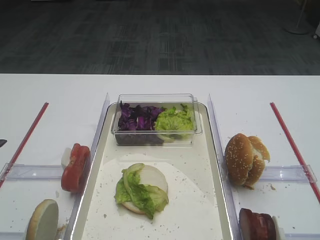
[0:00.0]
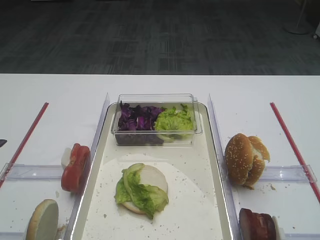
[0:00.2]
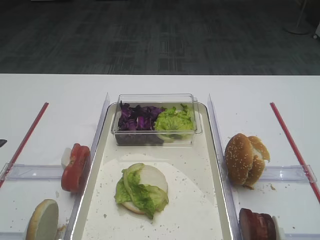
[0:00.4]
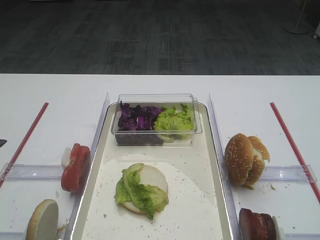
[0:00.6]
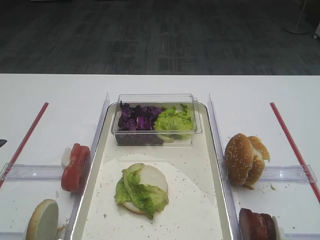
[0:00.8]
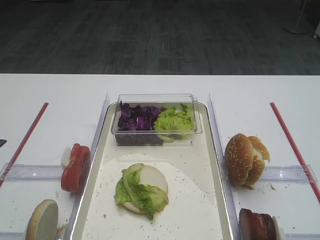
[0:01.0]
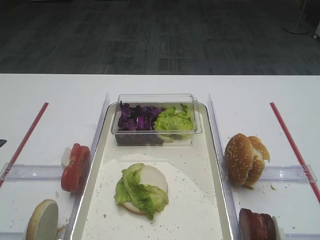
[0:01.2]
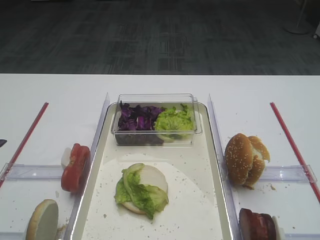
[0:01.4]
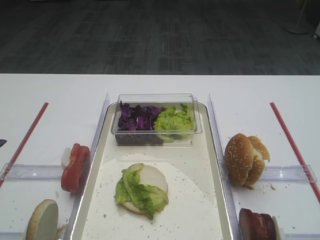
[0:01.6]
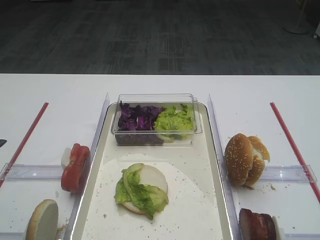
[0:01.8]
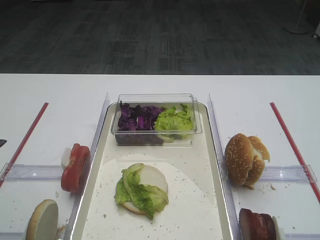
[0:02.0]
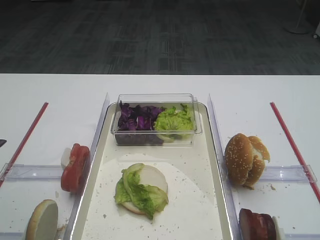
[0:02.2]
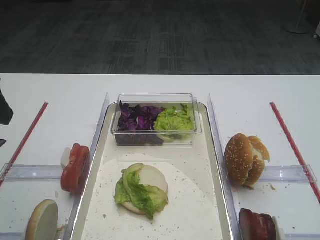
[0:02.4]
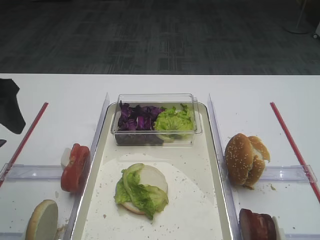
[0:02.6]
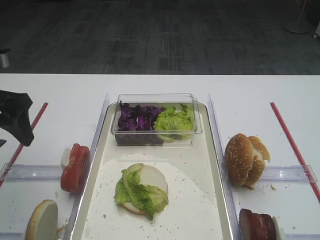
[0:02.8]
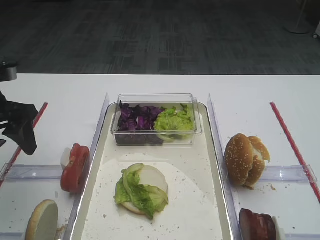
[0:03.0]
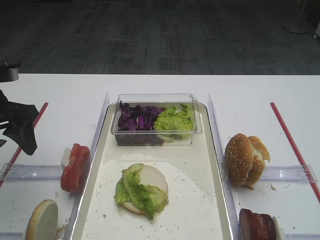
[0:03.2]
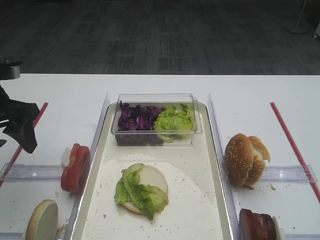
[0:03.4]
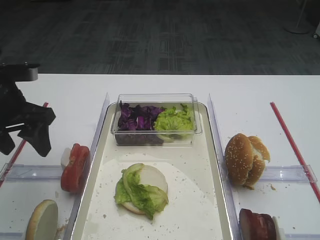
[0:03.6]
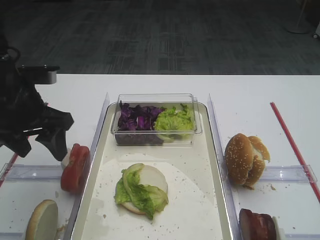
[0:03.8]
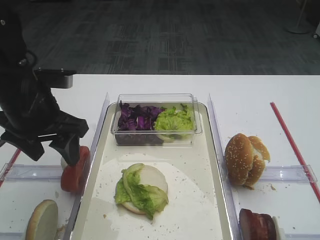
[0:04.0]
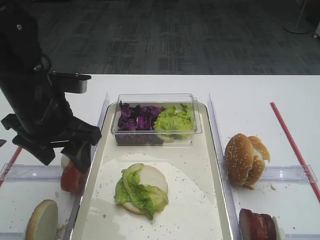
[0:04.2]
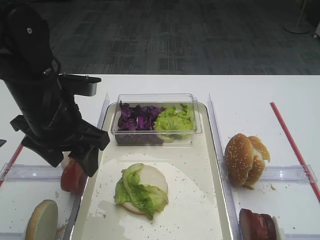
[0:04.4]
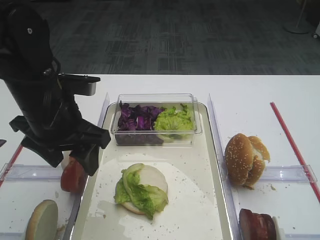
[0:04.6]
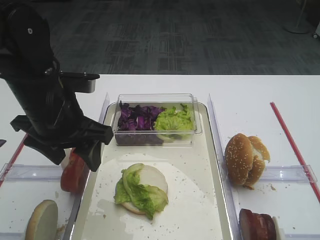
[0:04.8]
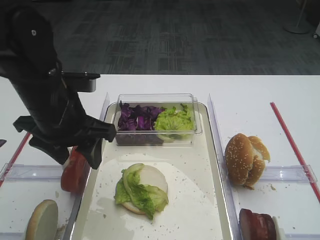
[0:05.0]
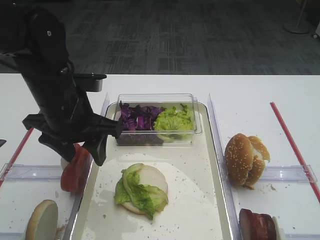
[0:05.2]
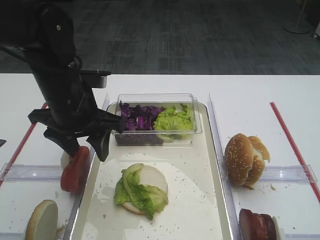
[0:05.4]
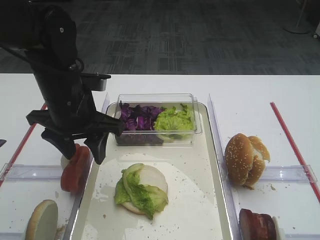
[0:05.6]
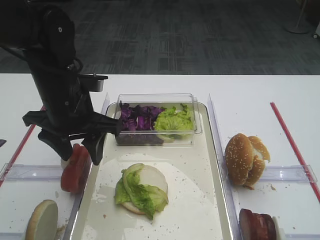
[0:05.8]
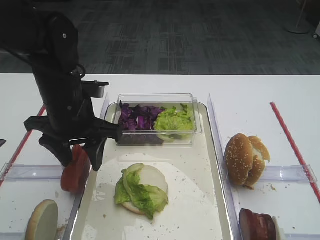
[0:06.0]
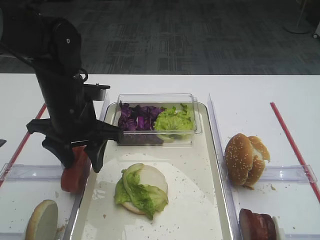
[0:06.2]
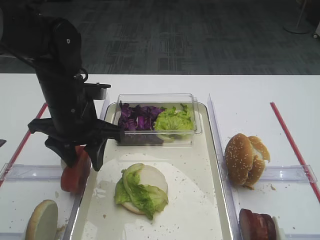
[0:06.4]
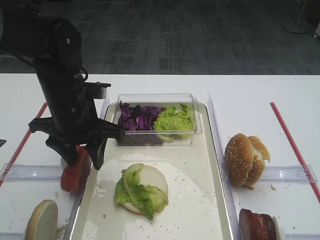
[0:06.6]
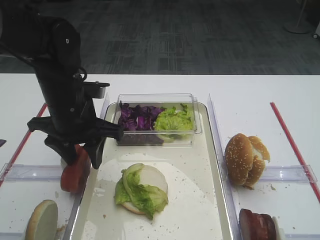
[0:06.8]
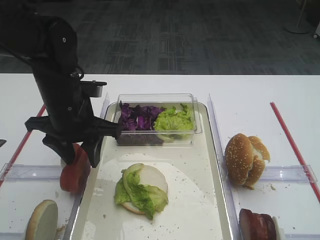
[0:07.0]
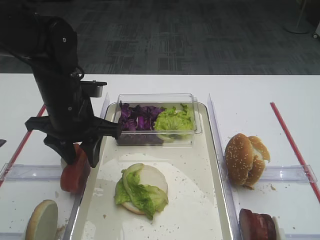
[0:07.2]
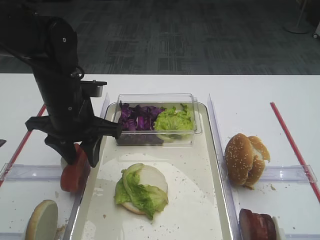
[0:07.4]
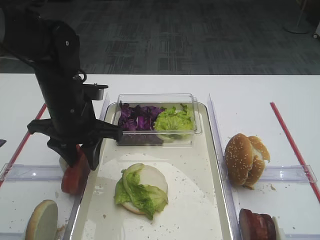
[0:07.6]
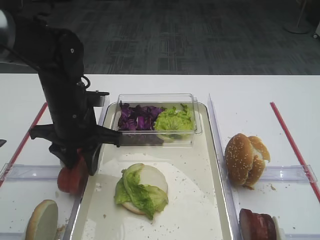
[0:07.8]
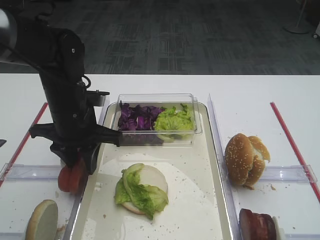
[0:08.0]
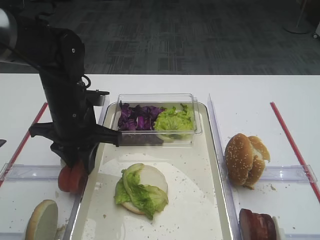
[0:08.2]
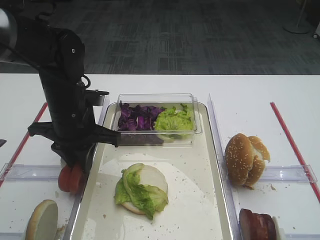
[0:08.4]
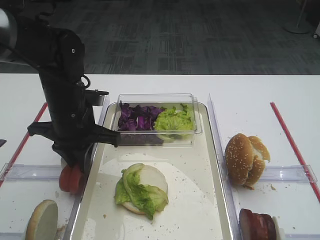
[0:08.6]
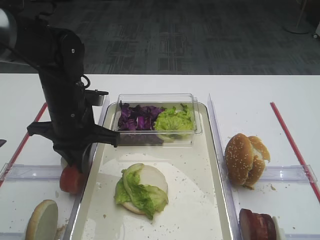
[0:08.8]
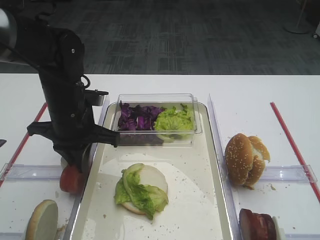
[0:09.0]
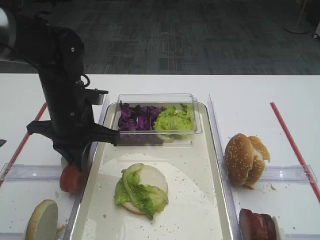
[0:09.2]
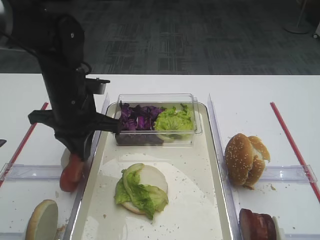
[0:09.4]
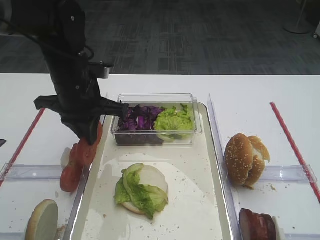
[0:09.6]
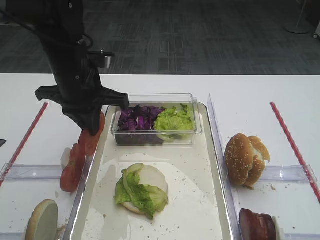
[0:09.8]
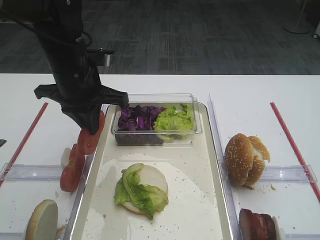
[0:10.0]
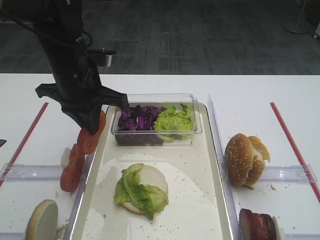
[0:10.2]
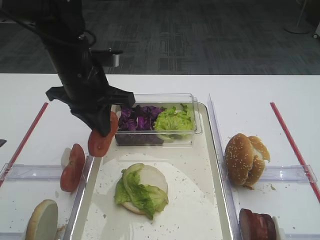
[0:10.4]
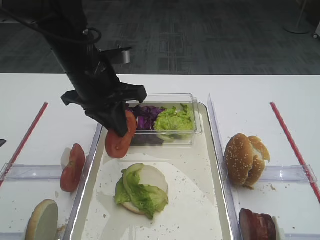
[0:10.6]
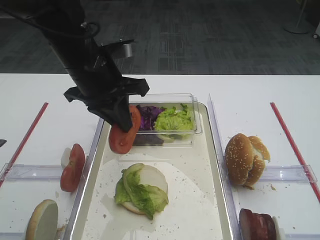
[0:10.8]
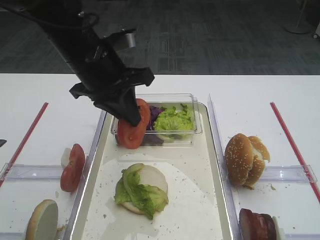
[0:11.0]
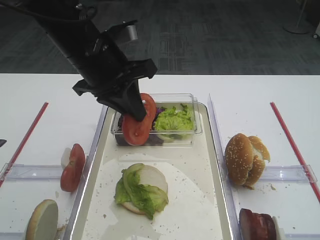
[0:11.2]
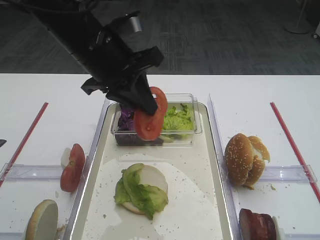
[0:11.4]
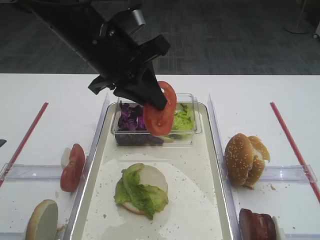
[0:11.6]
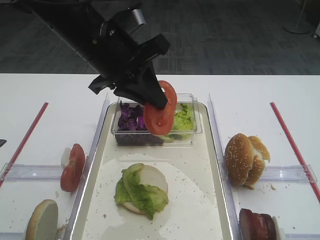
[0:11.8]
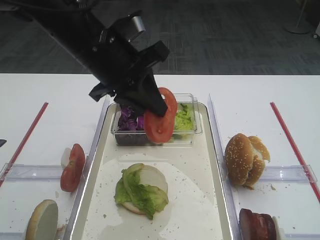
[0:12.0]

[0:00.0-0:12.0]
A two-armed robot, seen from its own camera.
Step, 0:00.0 to 0:09.8: Pick up the tomato slice with the left gripper.
0:01.6 to 0:03.0: The left gripper heads forward, covering about 25 cm.
0:03.0 to 0:04.4: The left gripper travels to the right by roughly 10 cm.
0:04.4 to 0:07.6: The grippers stay close to where they were, moving slightly.
0:07.6 to 0:09.0: The left gripper closes its fingers.
0:09.0 to 0:10.4: The left gripper heads upward, covering approximately 5 cm.
0:10.4 to 0:12.0: The left gripper shifts by about 5 cm.

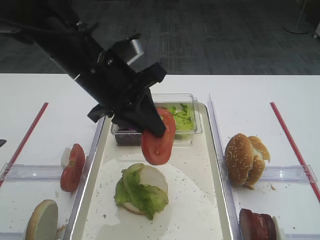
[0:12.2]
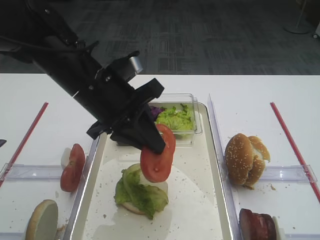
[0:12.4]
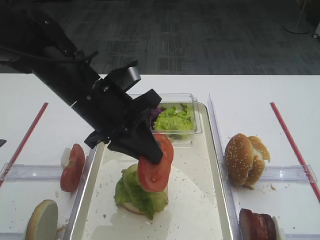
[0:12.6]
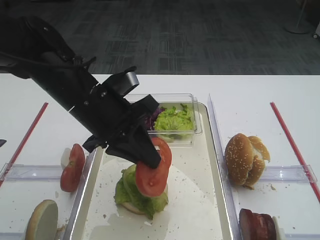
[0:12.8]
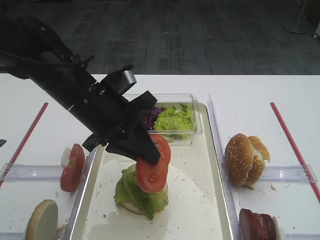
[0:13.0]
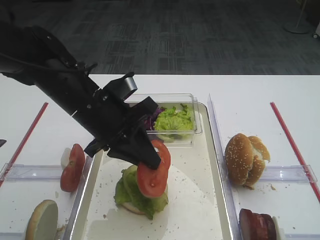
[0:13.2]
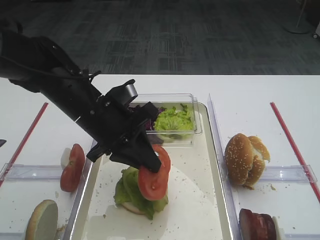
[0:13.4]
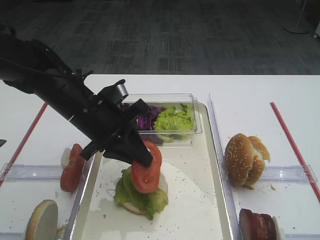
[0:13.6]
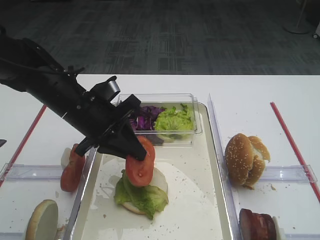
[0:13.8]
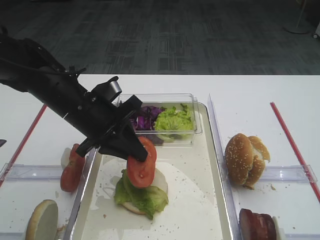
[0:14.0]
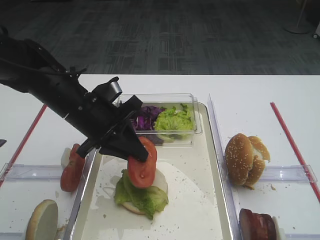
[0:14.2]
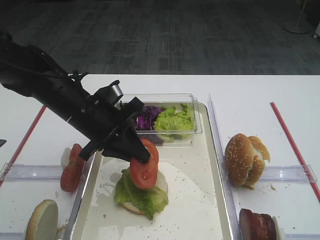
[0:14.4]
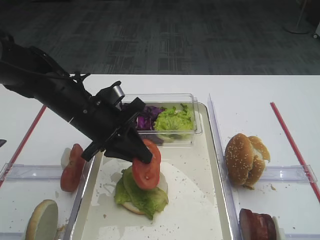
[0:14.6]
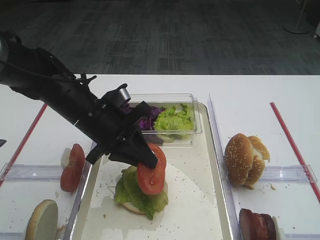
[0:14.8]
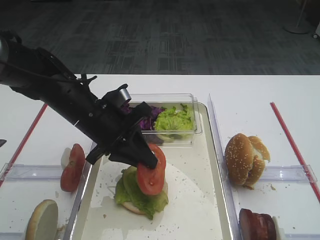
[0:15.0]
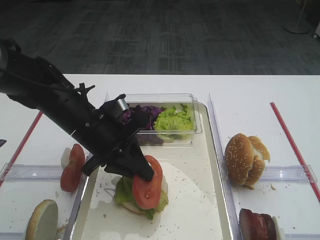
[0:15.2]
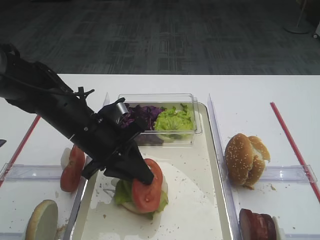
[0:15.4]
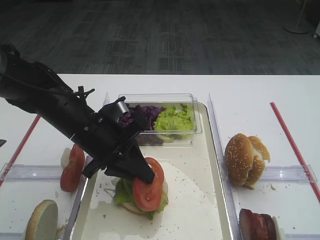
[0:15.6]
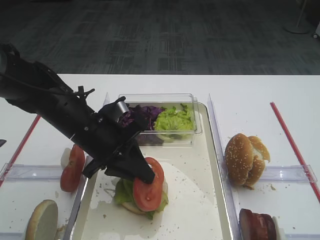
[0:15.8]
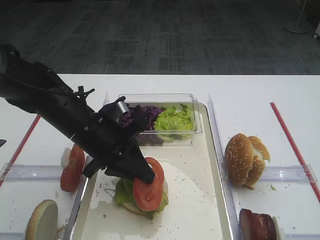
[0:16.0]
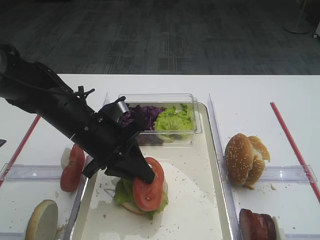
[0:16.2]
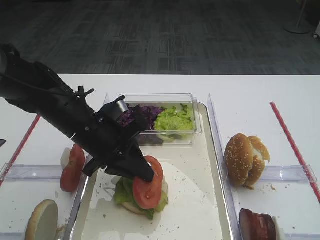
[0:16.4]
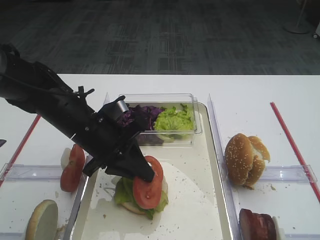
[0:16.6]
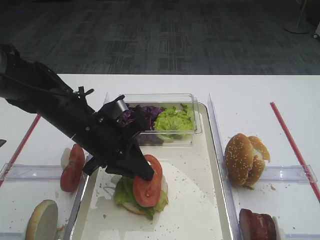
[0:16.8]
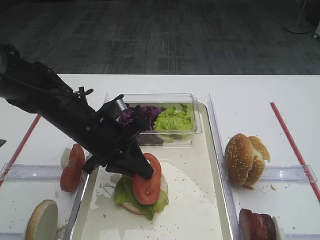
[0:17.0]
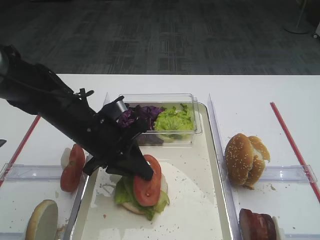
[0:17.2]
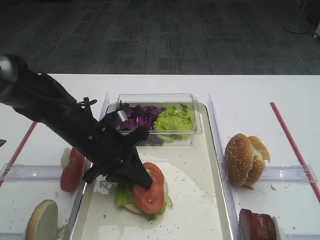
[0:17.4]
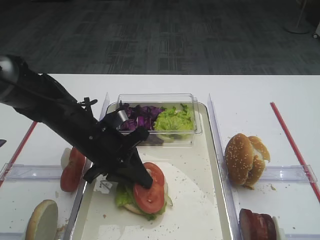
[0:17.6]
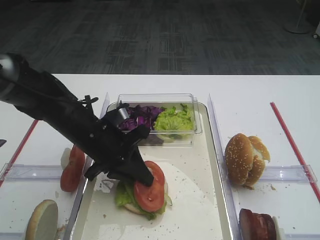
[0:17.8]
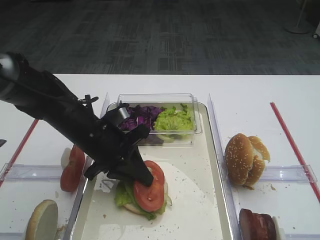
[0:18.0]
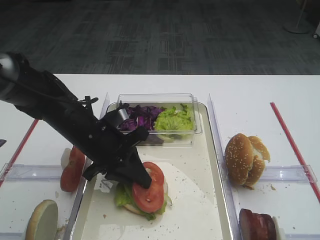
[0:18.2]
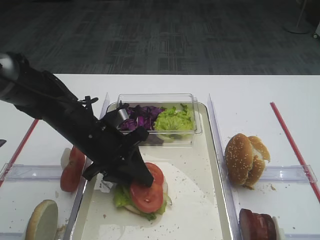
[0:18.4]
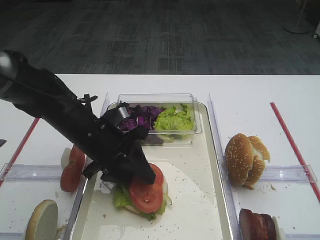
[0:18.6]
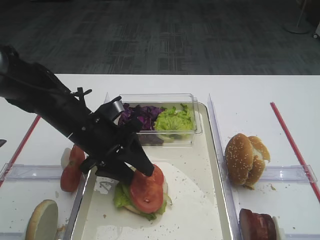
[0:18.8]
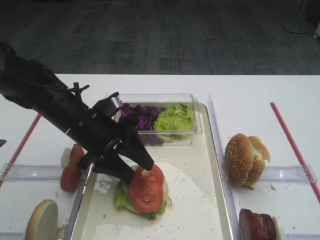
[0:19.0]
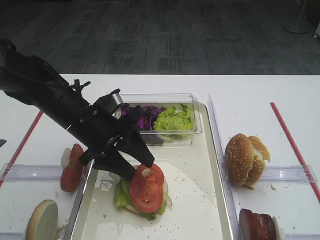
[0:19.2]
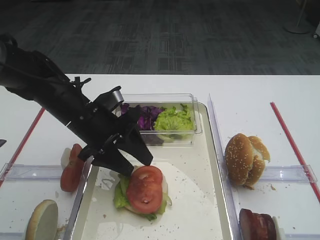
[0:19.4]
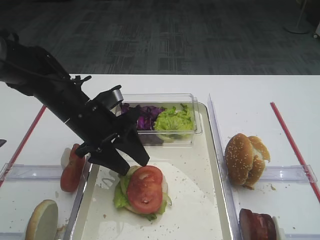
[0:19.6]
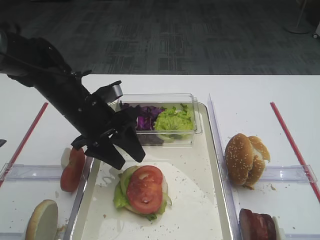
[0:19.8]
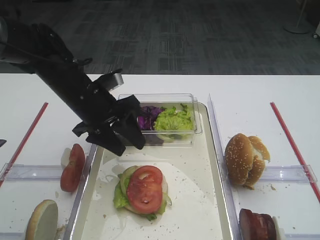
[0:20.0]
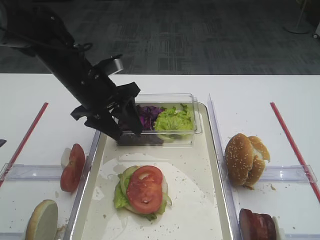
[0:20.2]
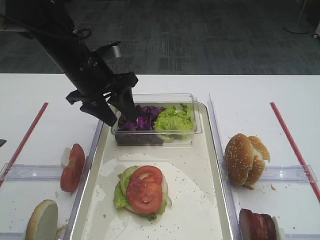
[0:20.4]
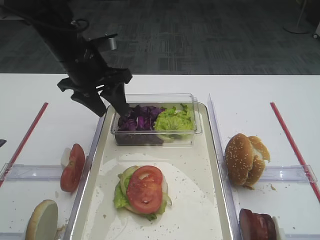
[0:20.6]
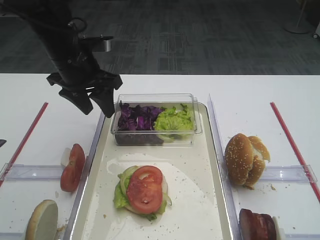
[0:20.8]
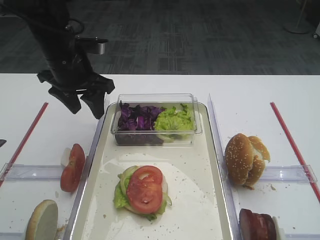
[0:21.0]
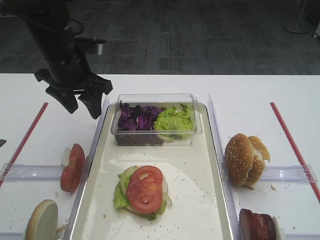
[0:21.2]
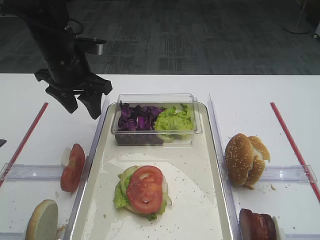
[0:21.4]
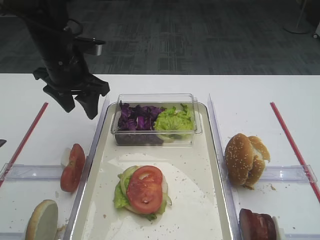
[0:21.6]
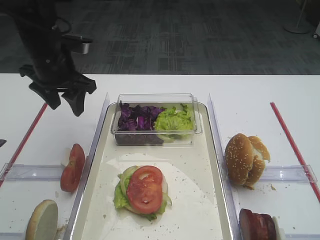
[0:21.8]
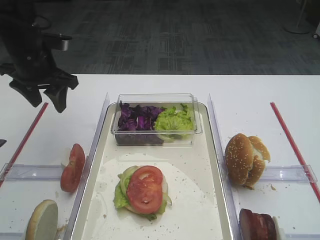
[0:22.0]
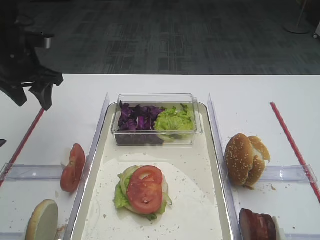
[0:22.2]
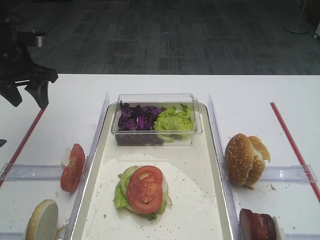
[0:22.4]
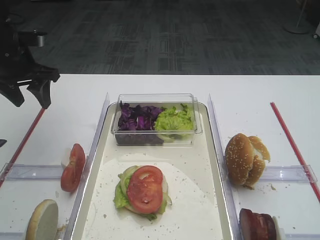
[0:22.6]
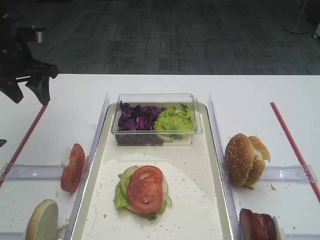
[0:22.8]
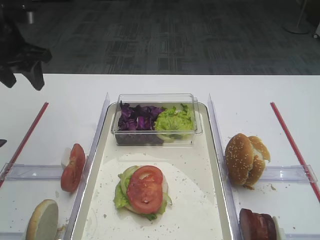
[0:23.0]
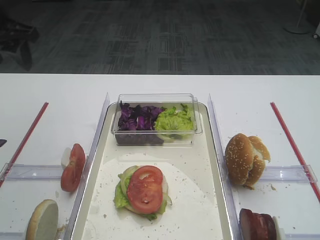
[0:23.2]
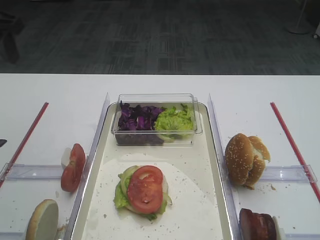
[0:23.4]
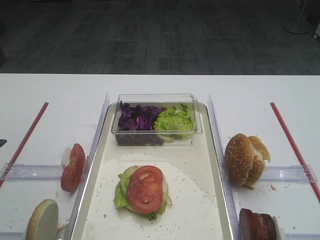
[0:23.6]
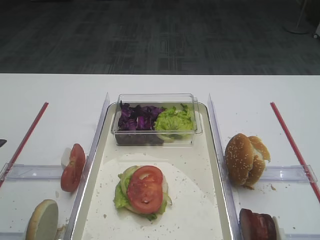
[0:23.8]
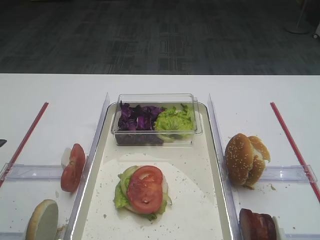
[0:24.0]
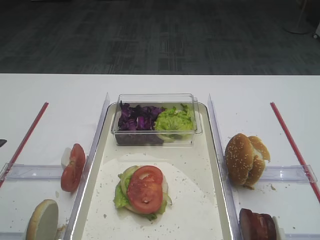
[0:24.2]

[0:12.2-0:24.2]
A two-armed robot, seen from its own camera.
Step, 0:12.2 to 0:19.4: Place the tomato slice on the lettuce leaf with the left gripper.
0:12.2 to 0:13.8: The left gripper travels downward by some 10 cm.
0:13.8 to 0:15.2: The grippers move only a little.
0:15.2 to 0:16.6: Neither gripper changes place.
0:16.6 to 0:18.2: There are only small adjustments of the grippers.
0:18.2 to 0:19.8: The left gripper opens its fingers.
0:19.8 to 0:21.2: The left gripper heads upward and forward, covering about 10 cm.
0:21.2 to 0:22.6: The left gripper goes some 10 cm to the left.
0:22.6 to 0:24.2: The left gripper travels backward and upward by about 25 cm.
